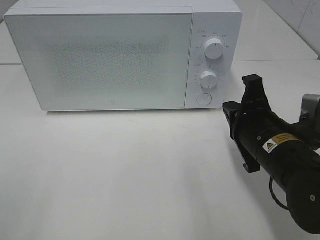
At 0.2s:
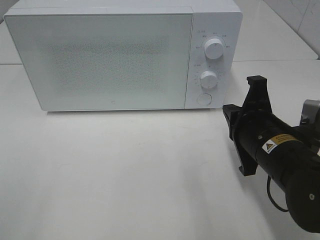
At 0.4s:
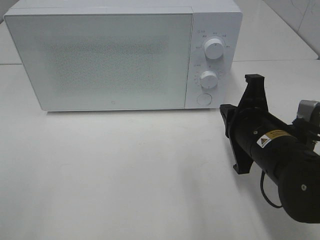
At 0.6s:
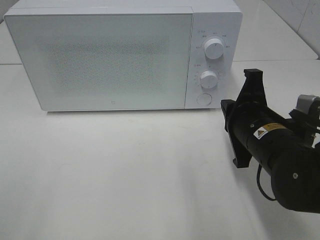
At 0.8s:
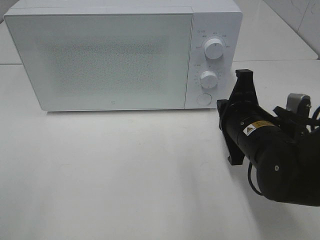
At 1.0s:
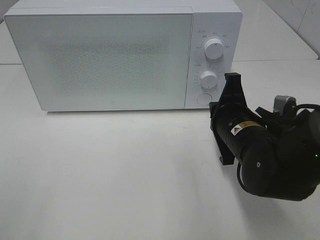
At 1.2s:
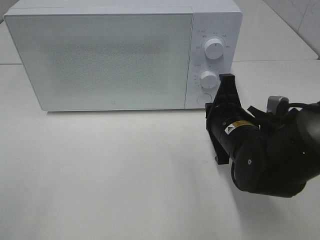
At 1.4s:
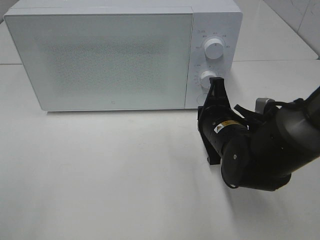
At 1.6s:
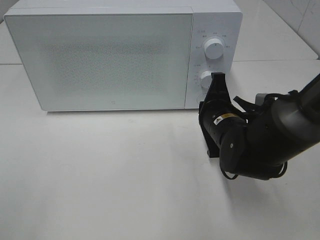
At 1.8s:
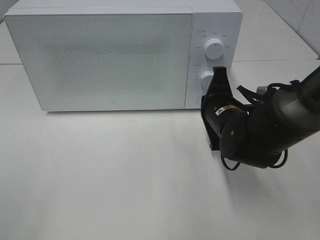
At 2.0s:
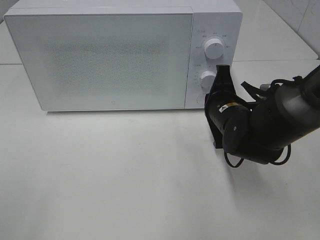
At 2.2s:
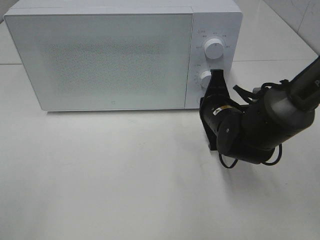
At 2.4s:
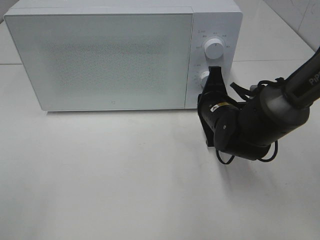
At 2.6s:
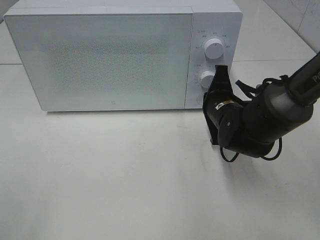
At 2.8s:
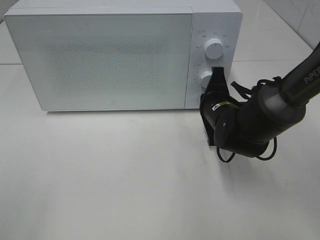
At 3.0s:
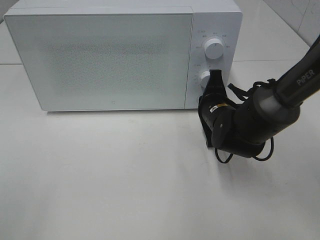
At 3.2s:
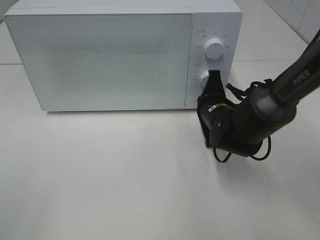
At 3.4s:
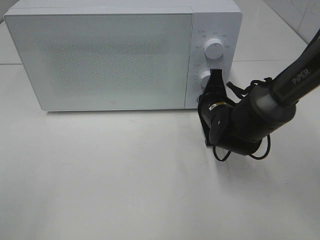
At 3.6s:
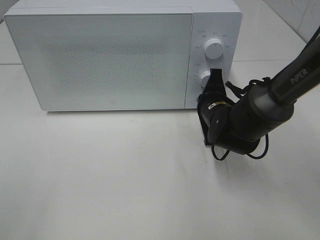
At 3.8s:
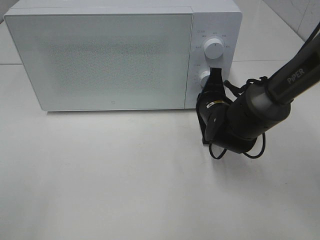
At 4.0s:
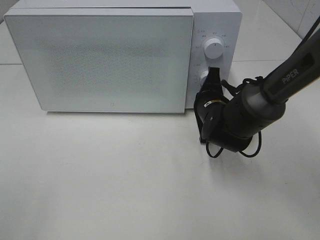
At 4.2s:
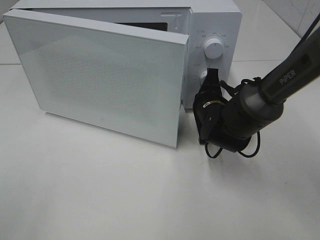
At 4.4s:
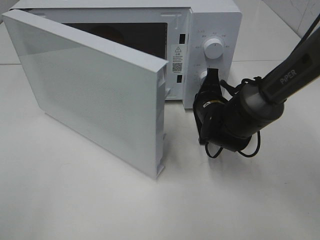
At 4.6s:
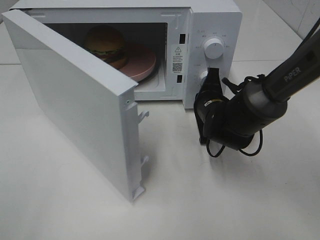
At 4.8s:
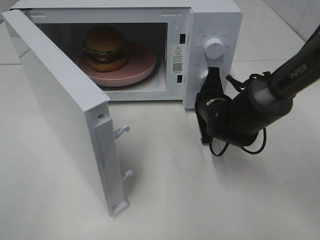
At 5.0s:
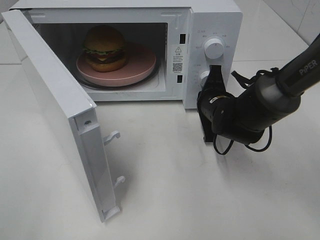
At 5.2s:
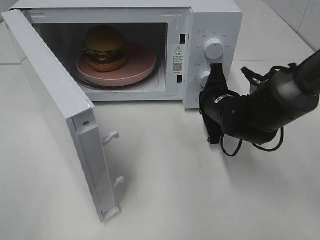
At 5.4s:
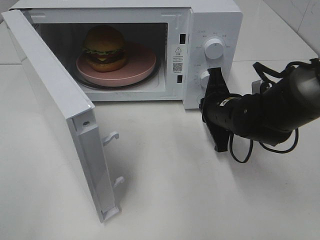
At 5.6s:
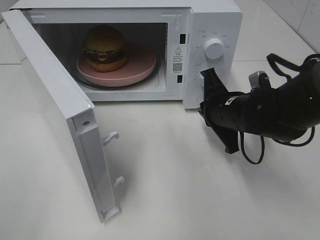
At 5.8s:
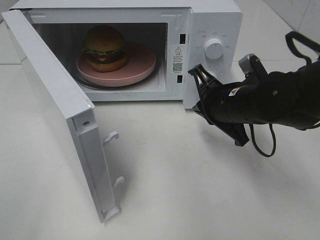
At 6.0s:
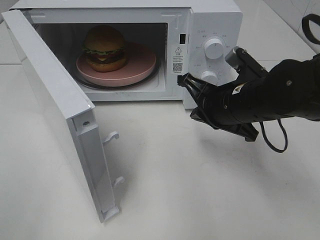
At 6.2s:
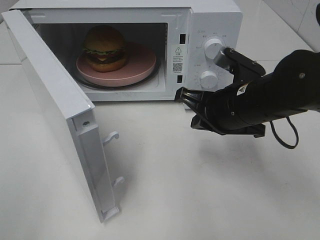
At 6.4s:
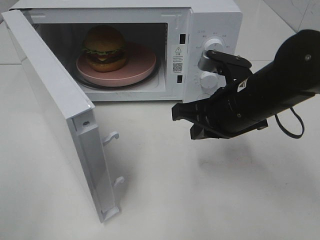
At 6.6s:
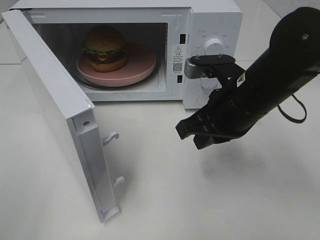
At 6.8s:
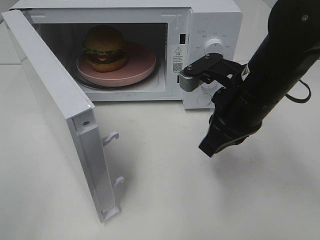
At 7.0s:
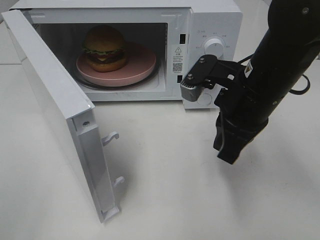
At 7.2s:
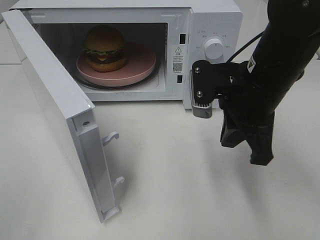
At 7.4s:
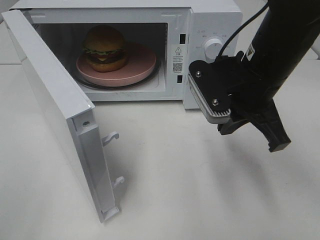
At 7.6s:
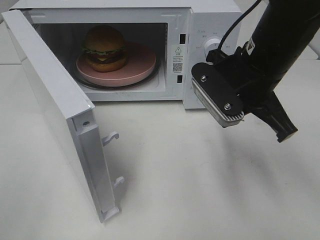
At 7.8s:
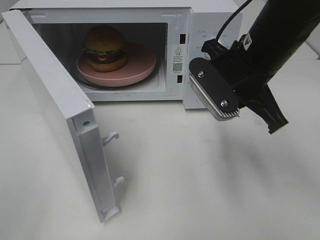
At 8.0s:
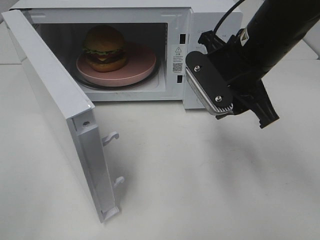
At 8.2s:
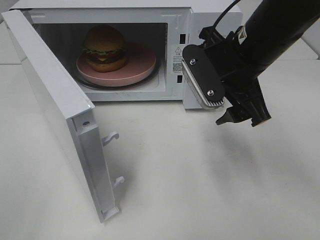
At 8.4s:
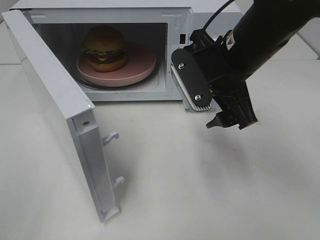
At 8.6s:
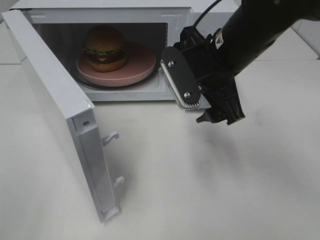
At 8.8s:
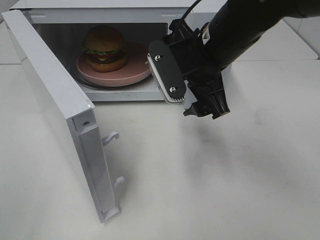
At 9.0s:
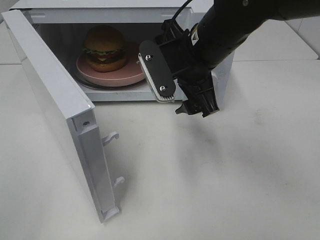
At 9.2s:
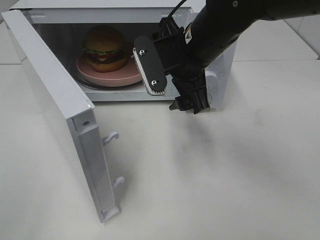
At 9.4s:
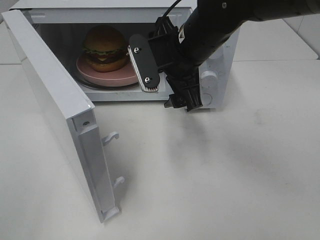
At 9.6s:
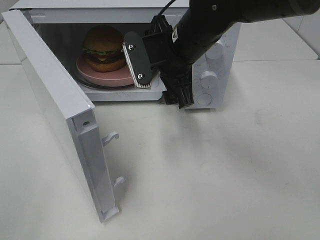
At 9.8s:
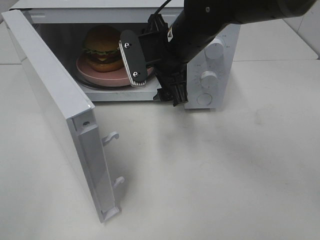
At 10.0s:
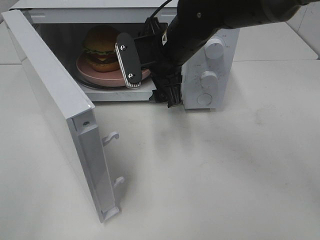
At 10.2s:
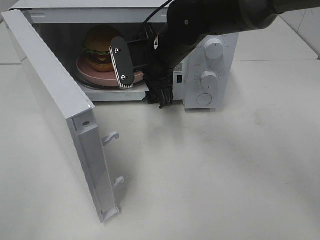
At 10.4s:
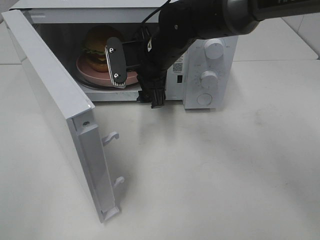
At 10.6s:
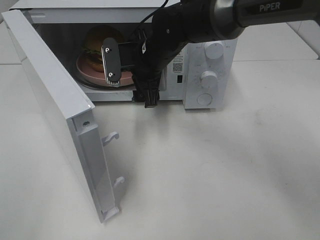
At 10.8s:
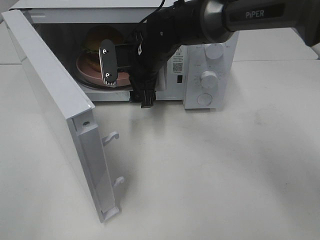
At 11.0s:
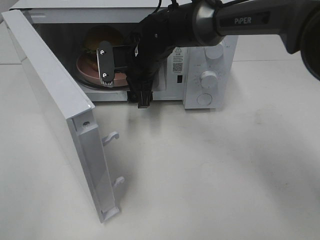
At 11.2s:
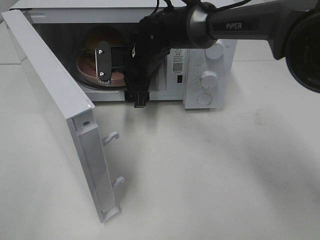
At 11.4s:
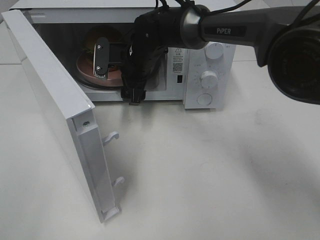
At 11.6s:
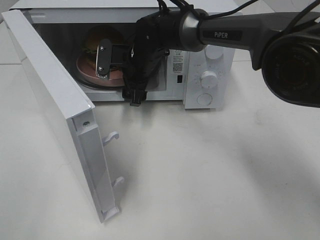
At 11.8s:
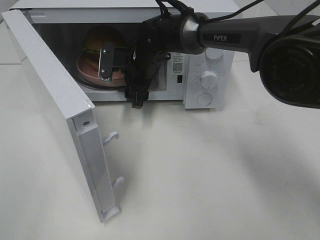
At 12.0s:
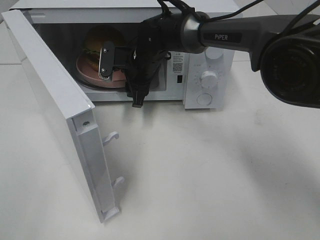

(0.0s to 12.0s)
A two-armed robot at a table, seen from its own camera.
Task of the whole recording: Heat the burger.
Step, 0.0s - 5.4s: Right hand: press the switch.
0.0s - 1.6s: The right gripper moves forward, about 10 cm.
1.6s - 3.0s: The right gripper ends up some 5 cm from where it was.
4.4s - 6.0s: The right gripper heads upward and backward, covering some 10 cm.
6.0s - 7.6s: The right gripper shifts some 10 cm upward.
7.6s - 9.0s: The right gripper goes roughly 5 cm to the left, and opens up.
9.0s - 10.4s: The right gripper goes about 10 cm forward, to the left and downward.
10.4s - 12.0s: The right gripper shifts roughly 5 cm forward, and closes.

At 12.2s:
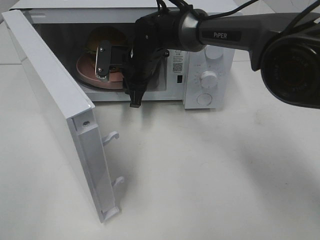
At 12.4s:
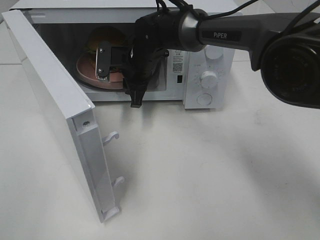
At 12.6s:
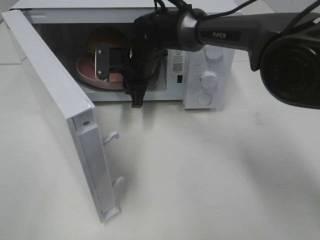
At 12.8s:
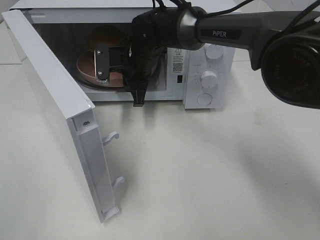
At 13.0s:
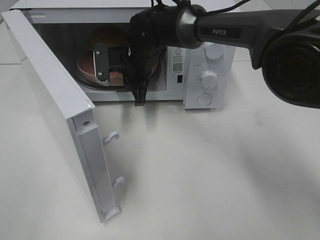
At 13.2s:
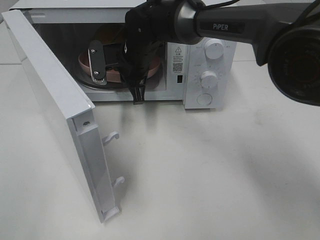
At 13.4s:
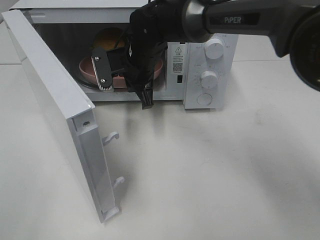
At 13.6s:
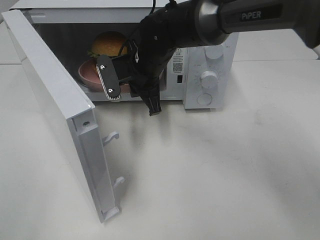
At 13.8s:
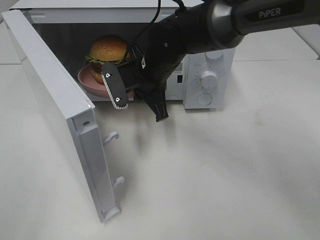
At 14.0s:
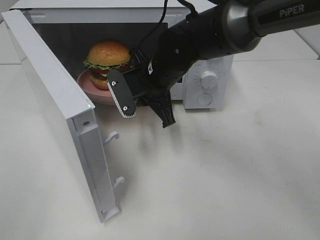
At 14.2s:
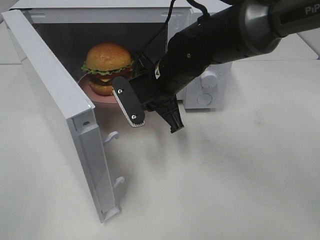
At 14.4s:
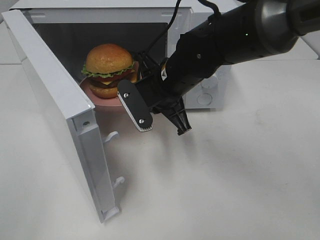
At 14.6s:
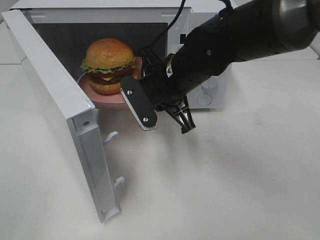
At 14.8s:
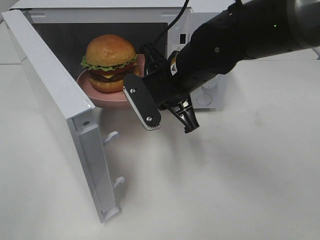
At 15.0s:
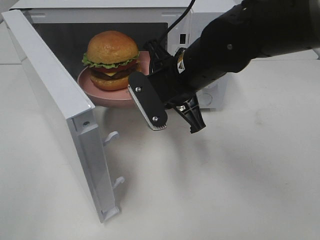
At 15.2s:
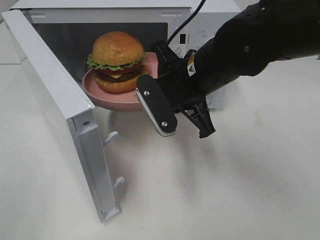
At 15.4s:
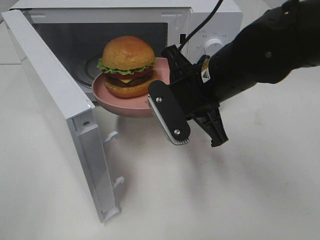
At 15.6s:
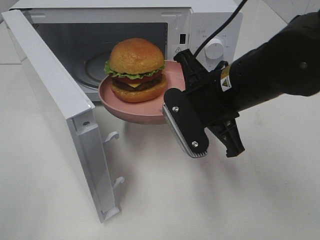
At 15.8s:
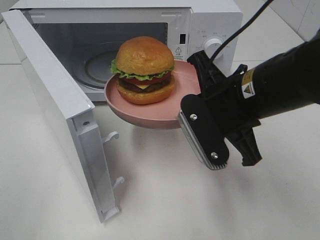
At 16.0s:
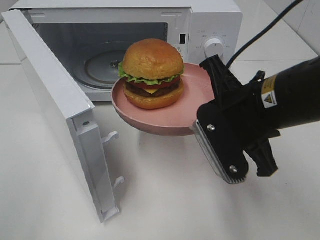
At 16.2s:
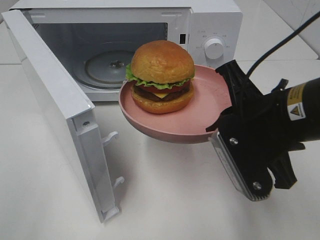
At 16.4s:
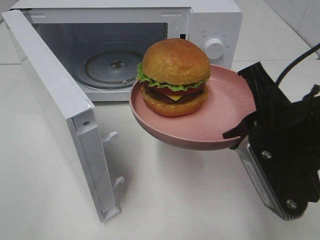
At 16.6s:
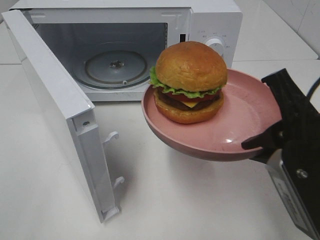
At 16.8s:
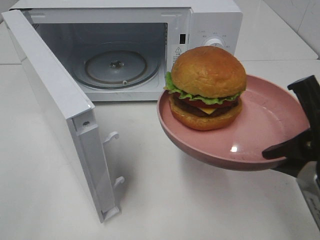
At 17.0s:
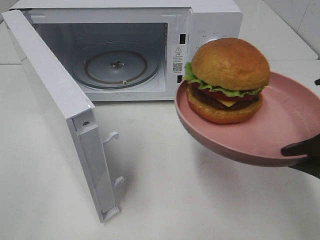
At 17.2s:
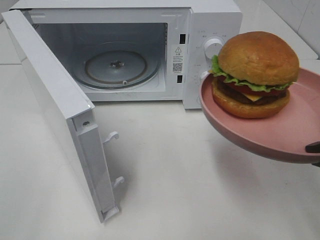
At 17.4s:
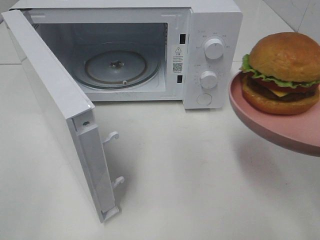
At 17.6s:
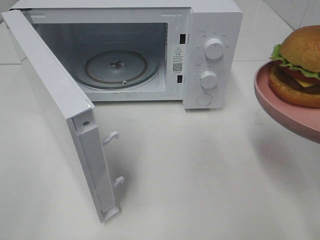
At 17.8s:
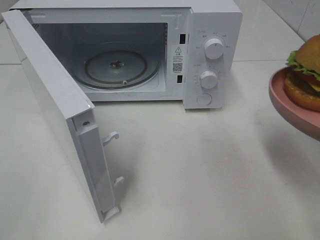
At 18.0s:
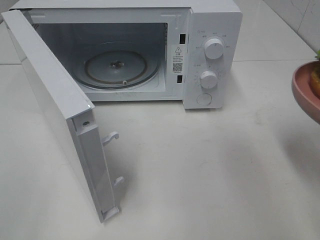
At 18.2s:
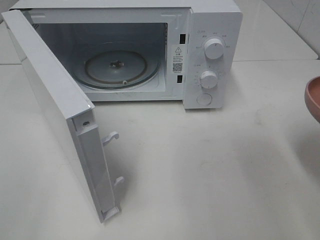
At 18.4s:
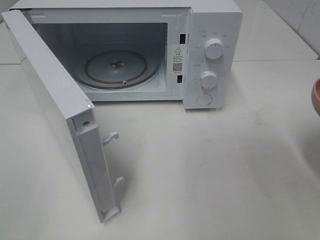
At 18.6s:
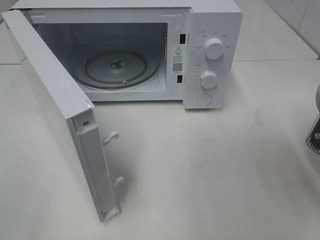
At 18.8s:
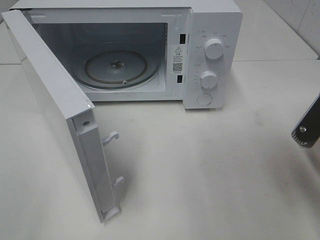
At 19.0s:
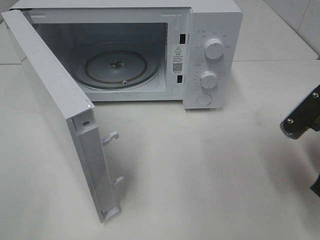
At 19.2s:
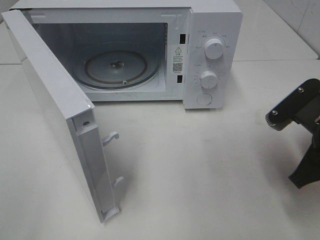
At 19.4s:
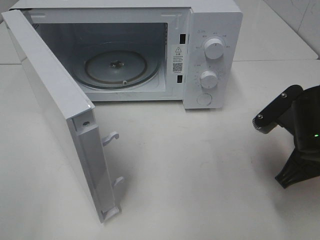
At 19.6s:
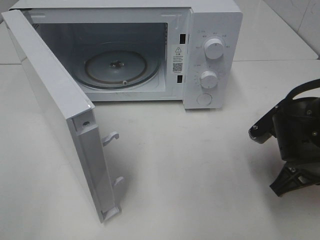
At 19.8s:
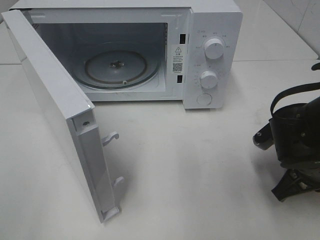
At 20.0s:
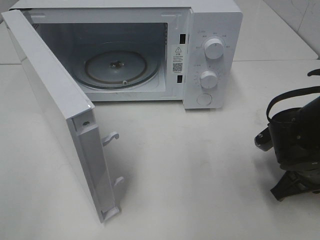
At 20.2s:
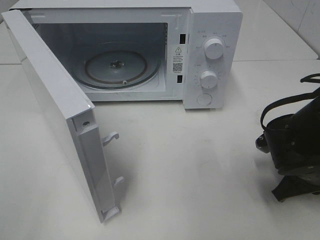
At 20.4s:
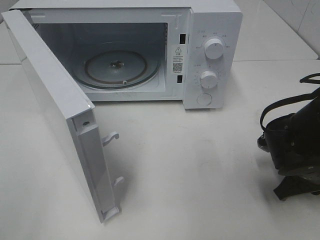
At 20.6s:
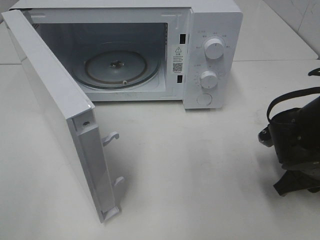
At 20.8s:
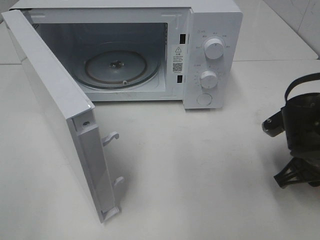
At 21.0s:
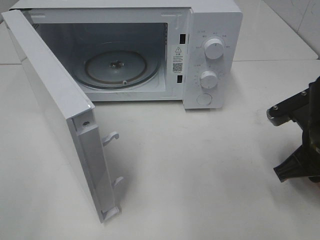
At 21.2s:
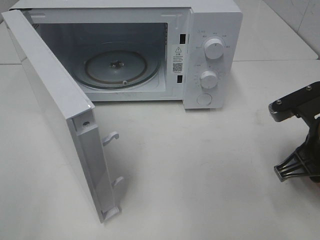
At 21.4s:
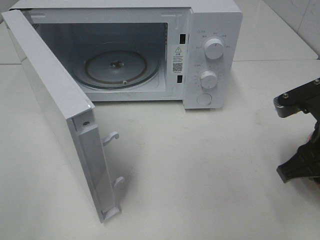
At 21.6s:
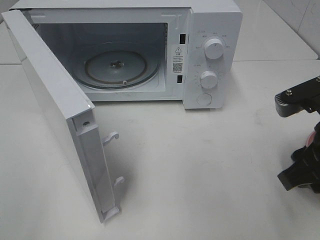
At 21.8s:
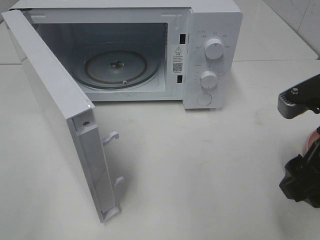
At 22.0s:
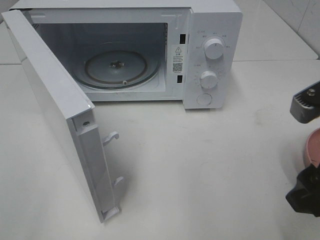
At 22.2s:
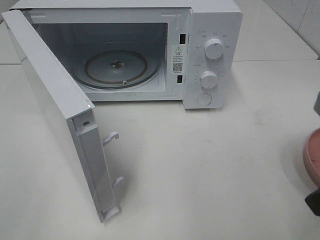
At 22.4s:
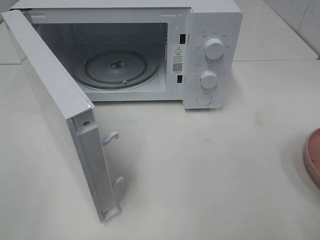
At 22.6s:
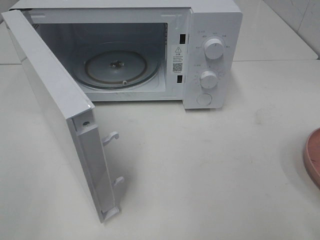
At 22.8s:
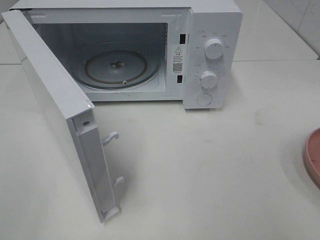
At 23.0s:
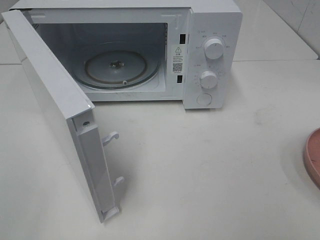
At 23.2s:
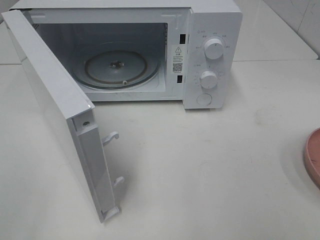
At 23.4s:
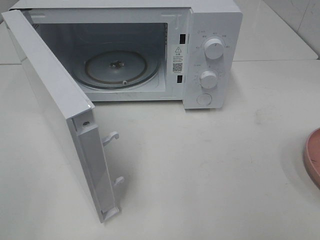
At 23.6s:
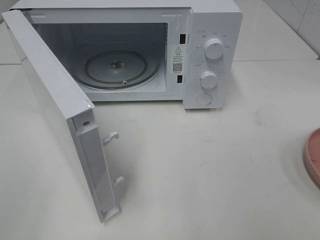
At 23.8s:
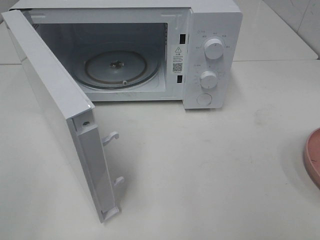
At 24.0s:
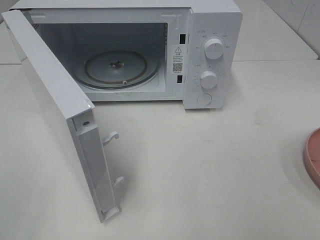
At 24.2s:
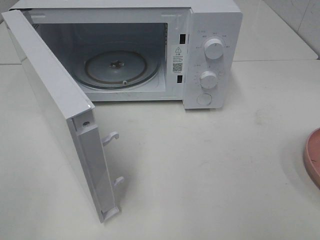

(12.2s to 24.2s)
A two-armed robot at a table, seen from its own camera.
Task of the whole recording: Heat the burger.
Step, 13.4s - 21.0s: Right hand: place the plate on the table.
12.2s - 13.8s: The right gripper moves backward, about 5 cm.
13.8s - 15.2s: The right gripper shifts approximately 10 cm backward and to the right.
15.2s - 16.6s: The right gripper travels backward and to the right by about 20 cm.
16.6s - 18.2s: The right gripper travels to the right by some 5 cm.
18.2s - 19.8s: The right gripper is displaced downward and forward by approximately 15 cm.
19.8s - 21.2s: The right gripper moves upward, approximately 5 cm.
21.2s - 22.6s: The right gripper heads backward and upward, covering some 15 cm, and opens.
